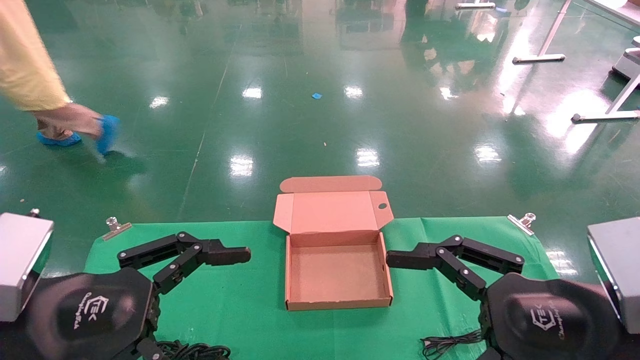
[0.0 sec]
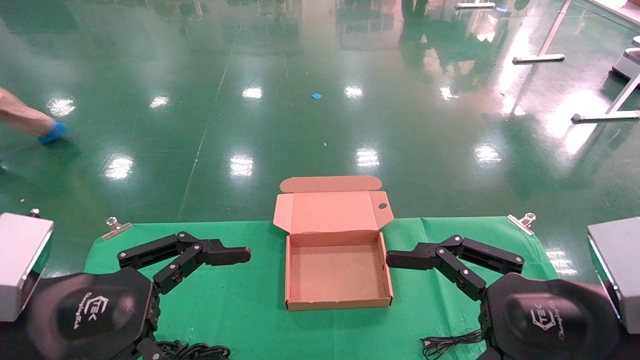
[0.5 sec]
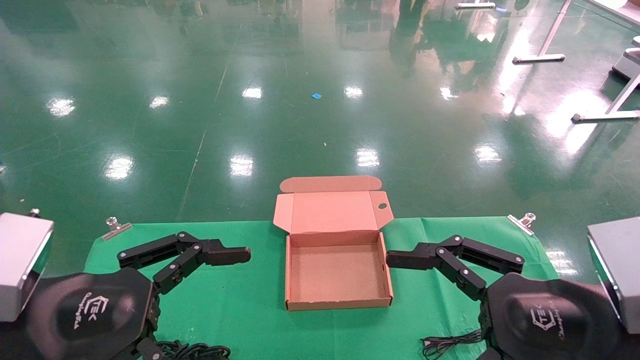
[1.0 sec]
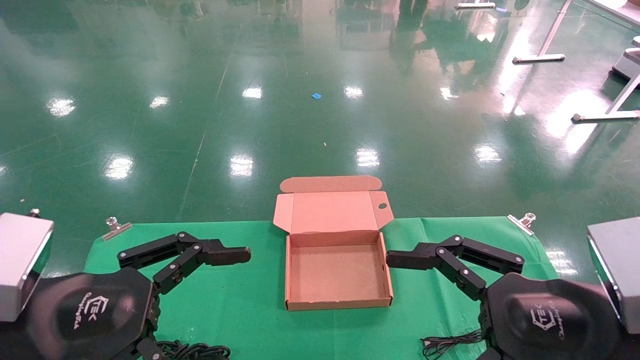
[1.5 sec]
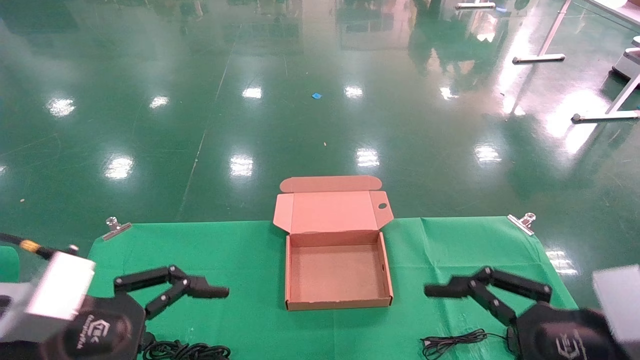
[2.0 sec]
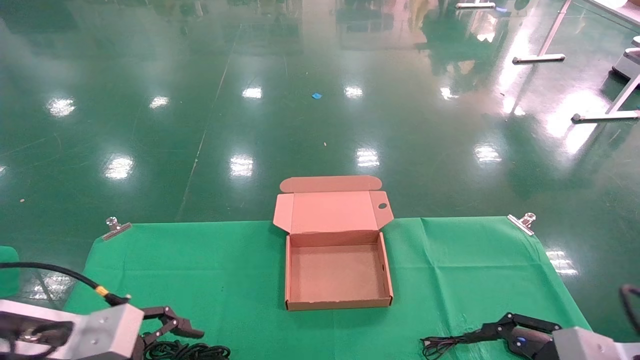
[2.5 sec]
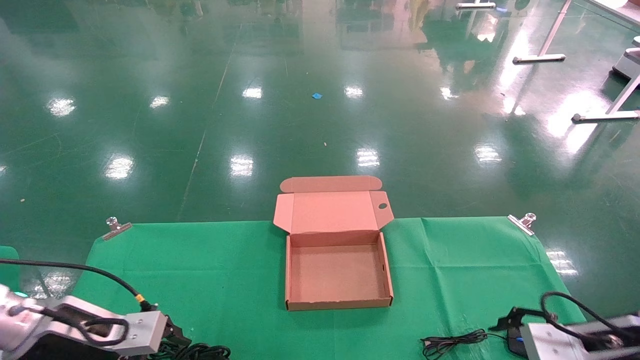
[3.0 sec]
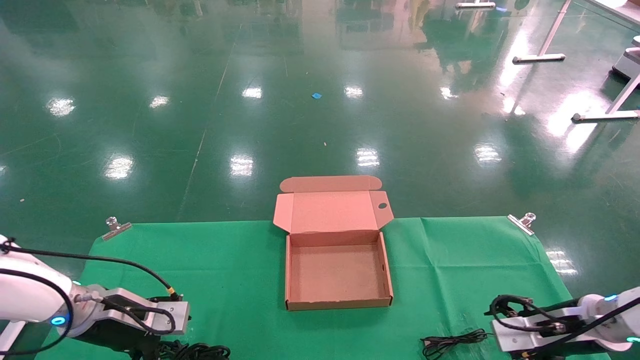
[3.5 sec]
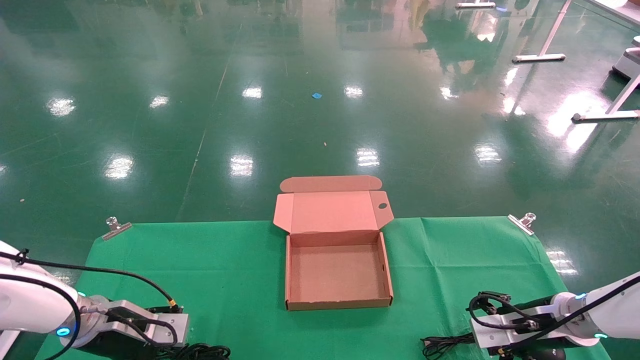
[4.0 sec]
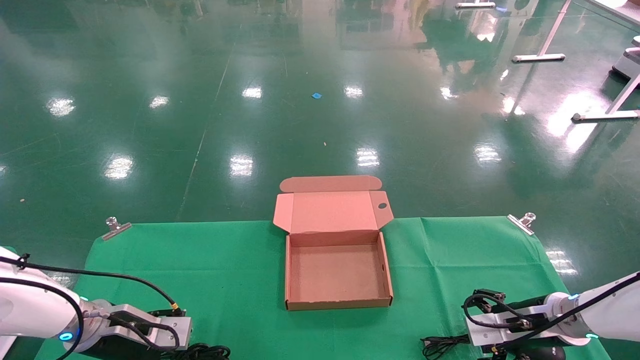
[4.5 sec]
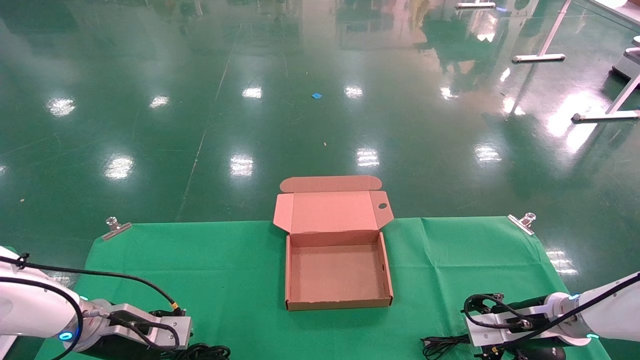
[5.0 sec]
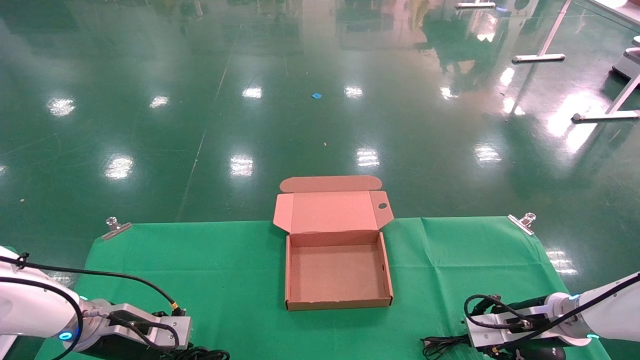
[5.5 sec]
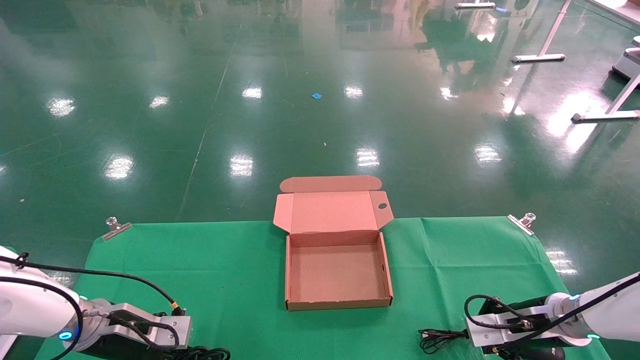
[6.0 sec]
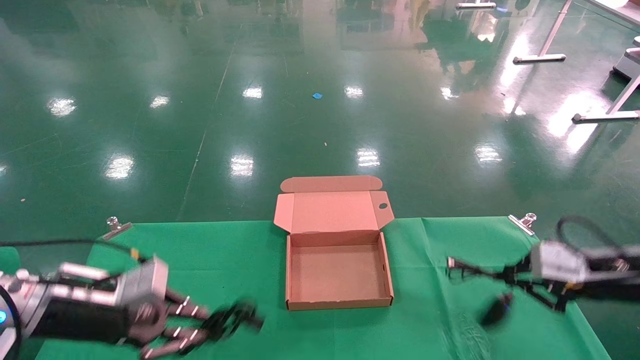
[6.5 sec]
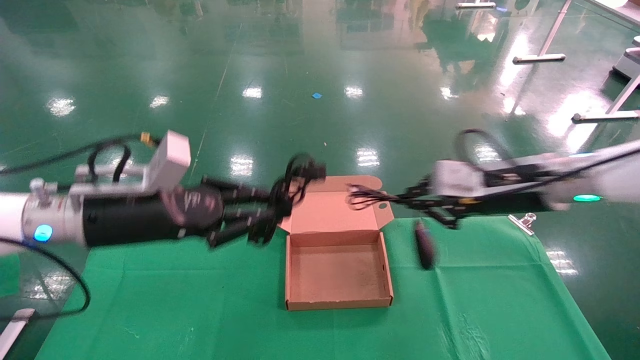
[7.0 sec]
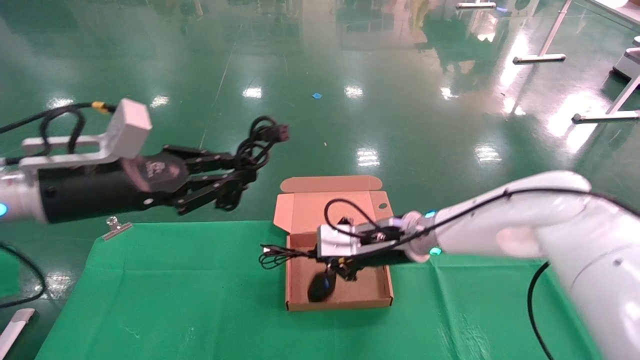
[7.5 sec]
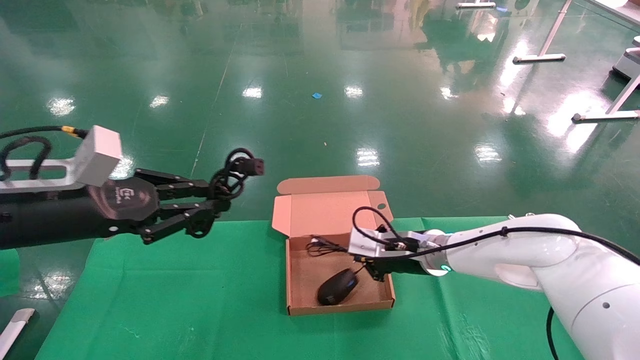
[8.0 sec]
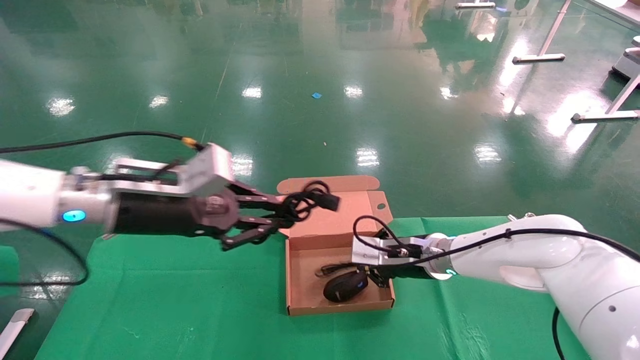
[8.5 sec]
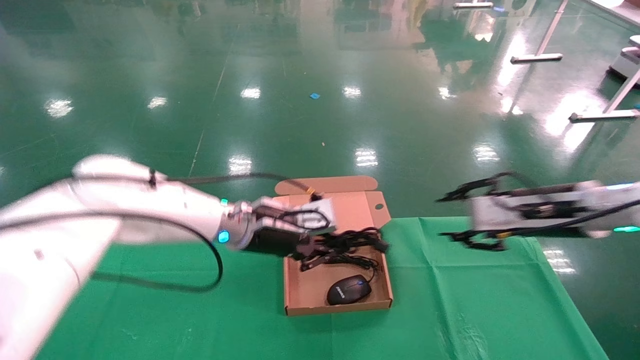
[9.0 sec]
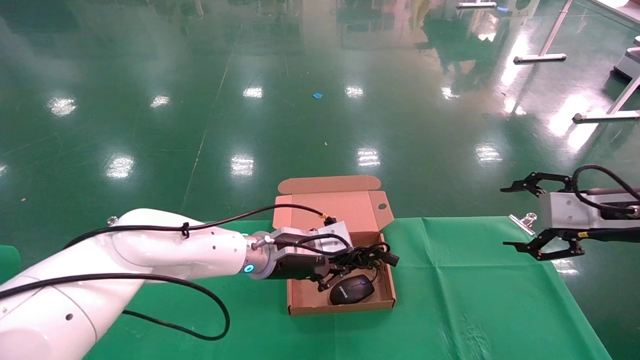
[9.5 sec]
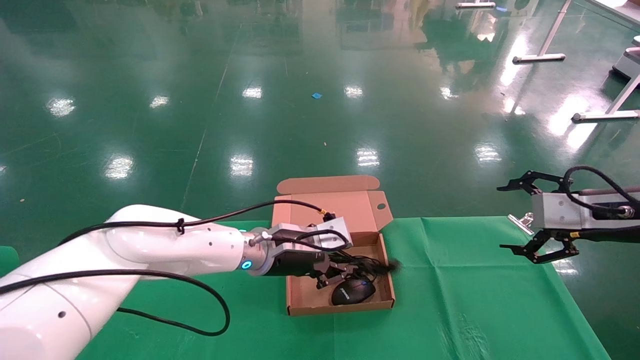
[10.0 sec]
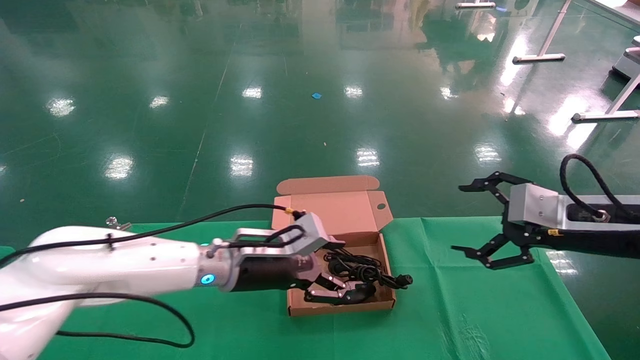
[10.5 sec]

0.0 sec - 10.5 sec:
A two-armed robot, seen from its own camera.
Step, 2.0 sec - 5.5 sec: Grab and lift both the mouse and power cord from the accessory packaging area at the same time.
Step, 6.0 sec - 9.5 sec: Place the mouse and power cord into the box.
0.0 sec - 2.0 sec: The grippers stay close to where they were, moving slightly.
2.0 sec - 4.0 sec: The grippers both shift forward and downward by approximately 25 cm.
4.0 sec - 6.5 sec: The right gripper travels upward by some 10 cm, and closes; the left gripper shifts approximately 5 cm upward, and closes up.
6.5 sec - 8.5 sec: The left gripper shifts roughly 15 cm upward and to the right, while the right gripper moves to the left and forward, about 25 cm.
8.5 sec - 10.5 sec: The right gripper heads to the right, backward and upward, covering roughly 25 cm, and opens. Meanwhile the left gripper is displaced downward and to the right by approximately 15 cm, and opens up.

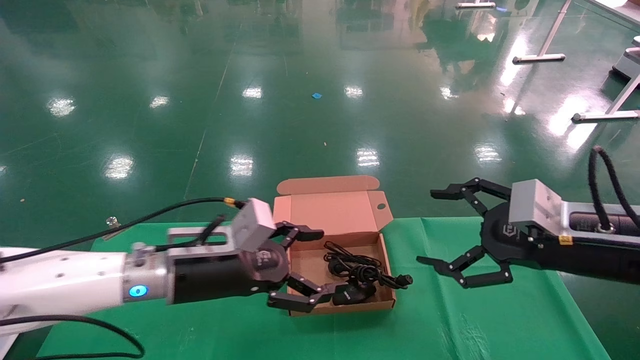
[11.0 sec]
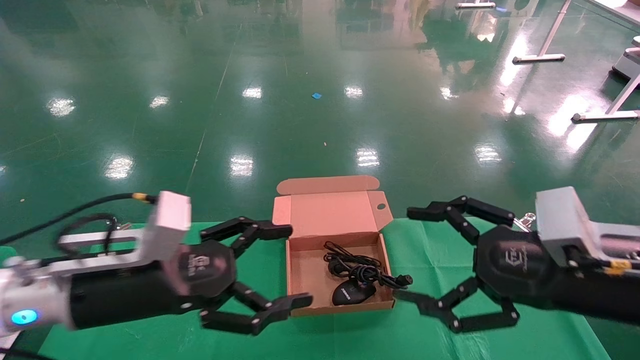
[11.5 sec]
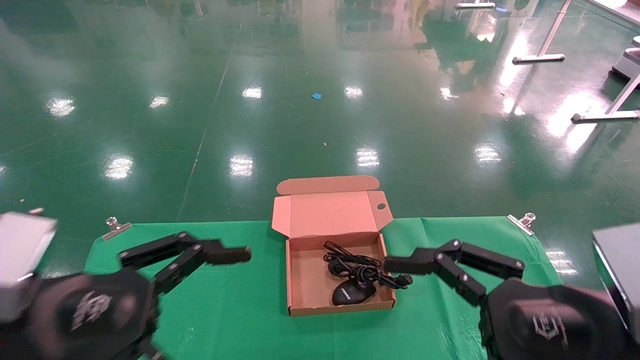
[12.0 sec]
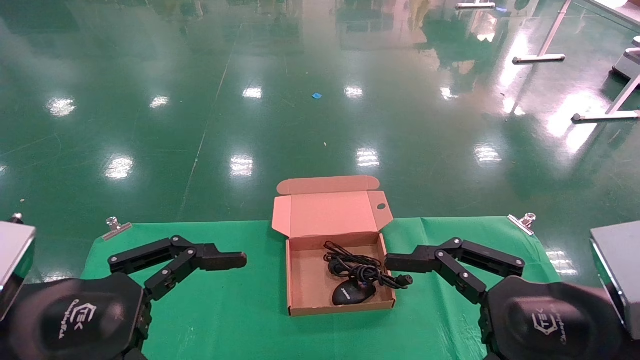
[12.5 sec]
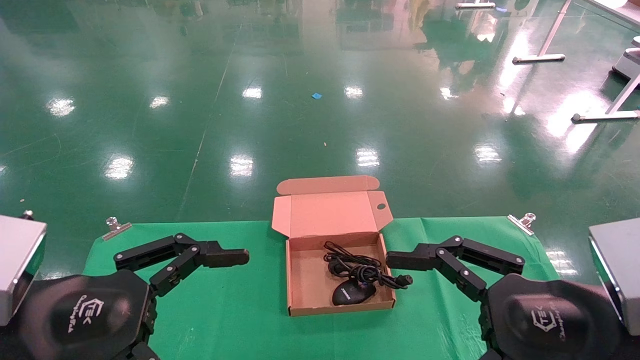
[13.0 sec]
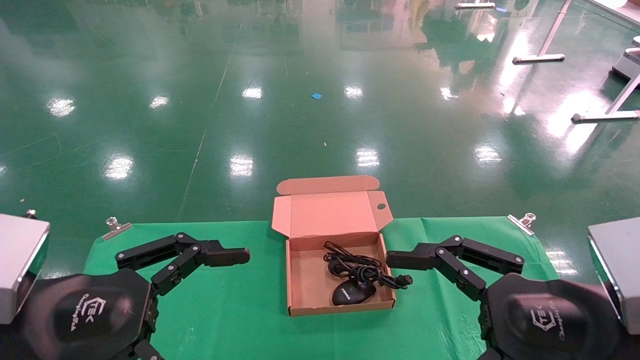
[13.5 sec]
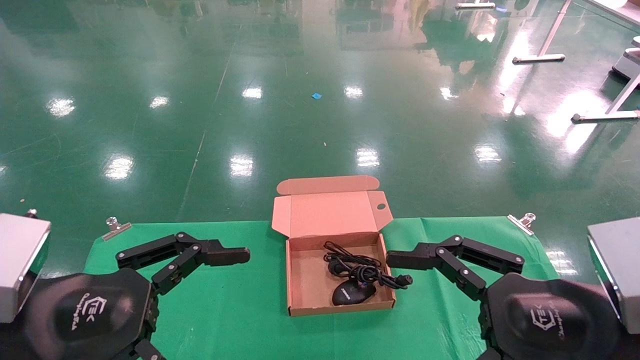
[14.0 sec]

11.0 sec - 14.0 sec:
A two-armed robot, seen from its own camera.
11.0 sec - 12.5 sec: The two grippers go approximately 15 cm backward and to the left.
12.5 sec - 14.0 sec: Both grippers stay about where they are.
